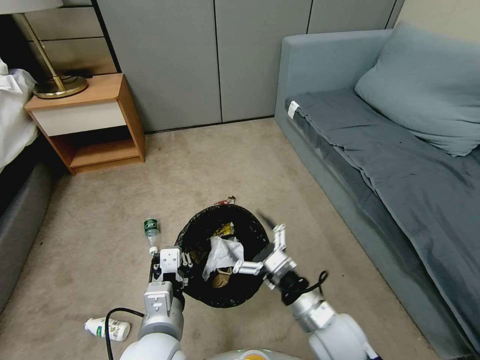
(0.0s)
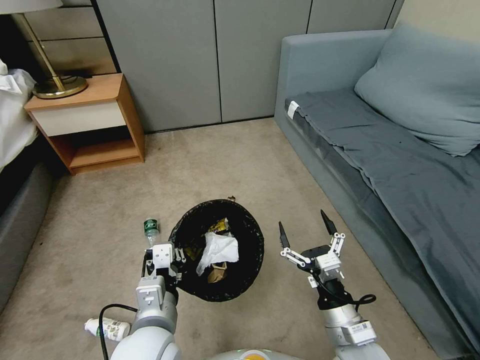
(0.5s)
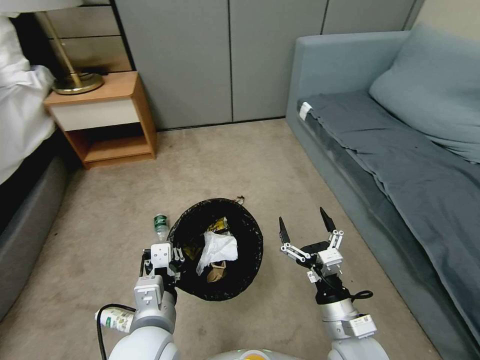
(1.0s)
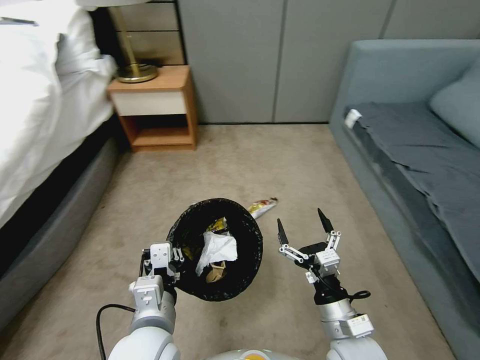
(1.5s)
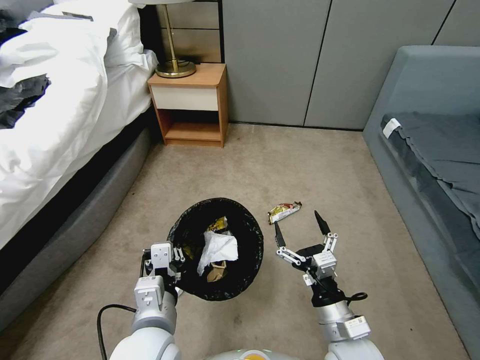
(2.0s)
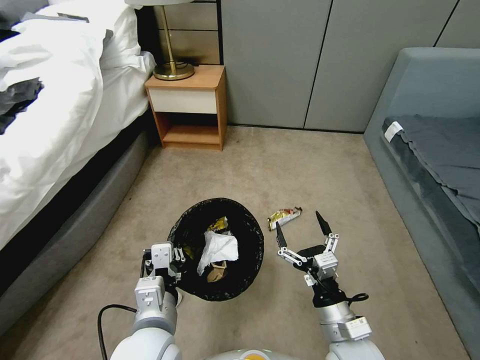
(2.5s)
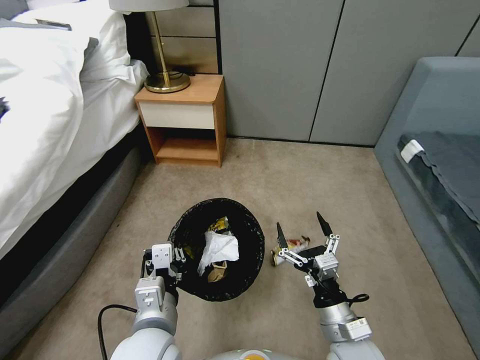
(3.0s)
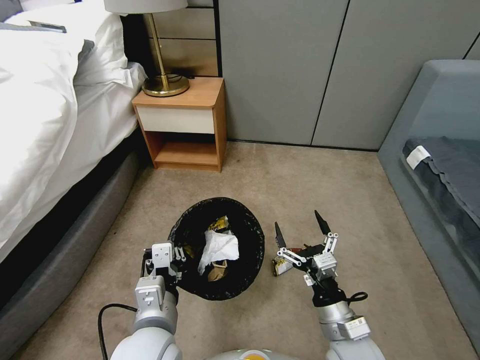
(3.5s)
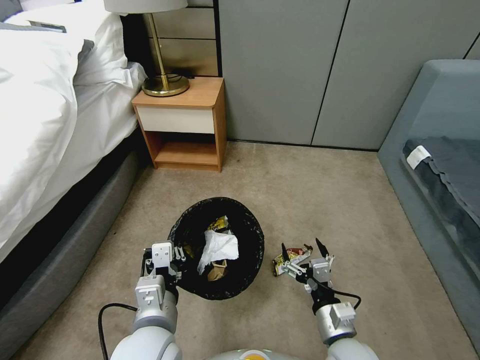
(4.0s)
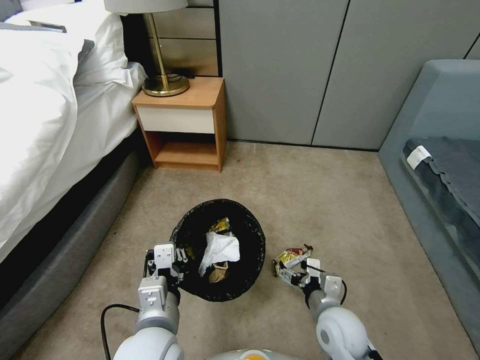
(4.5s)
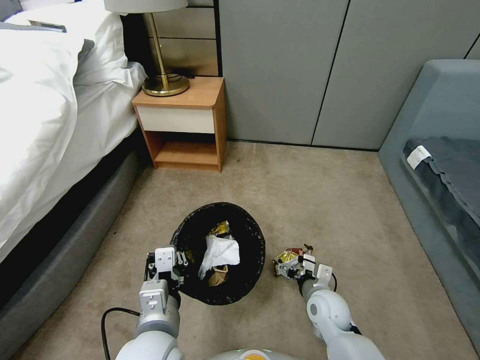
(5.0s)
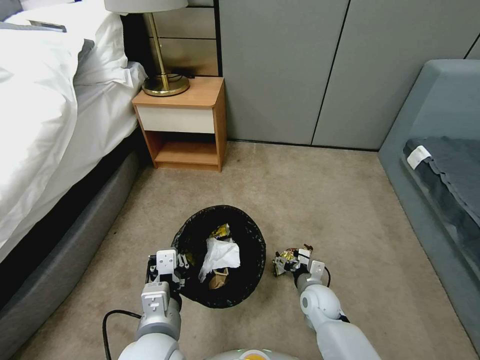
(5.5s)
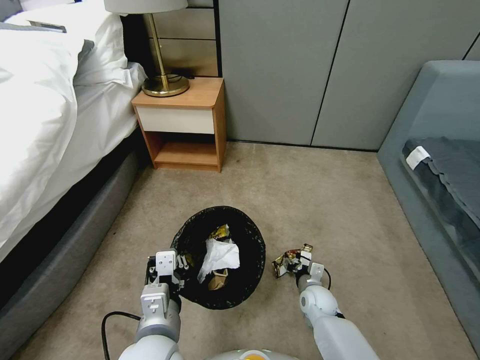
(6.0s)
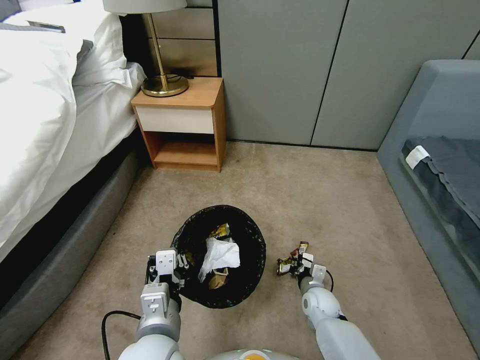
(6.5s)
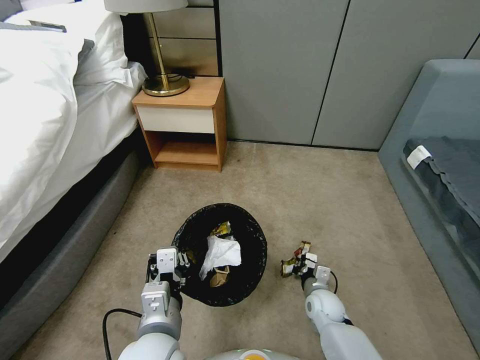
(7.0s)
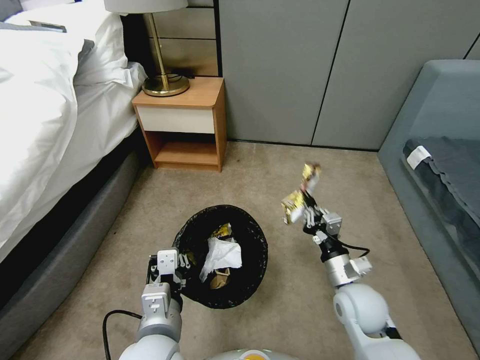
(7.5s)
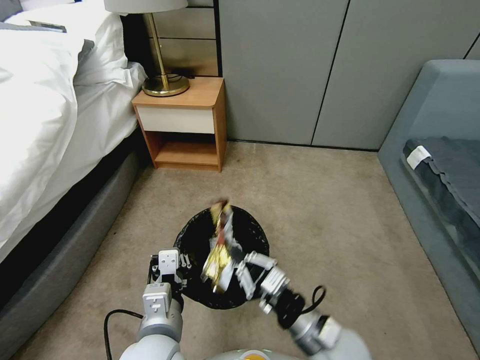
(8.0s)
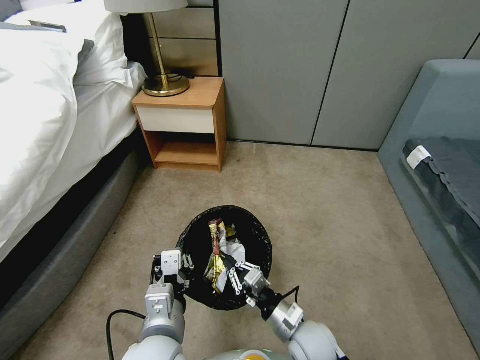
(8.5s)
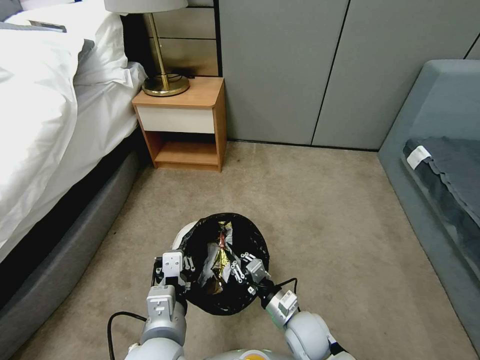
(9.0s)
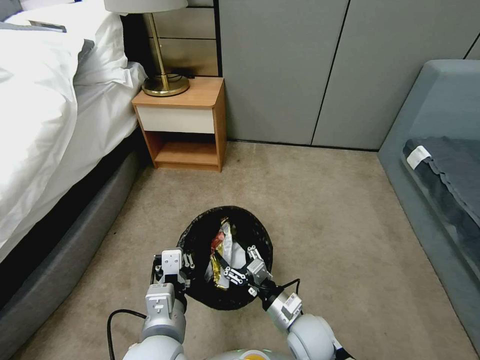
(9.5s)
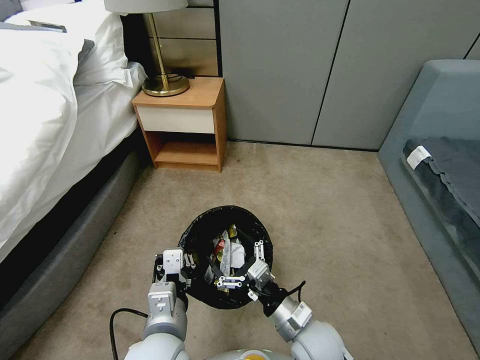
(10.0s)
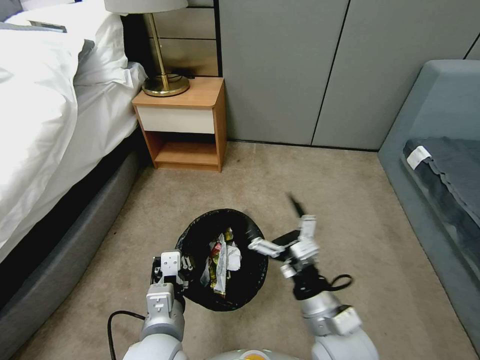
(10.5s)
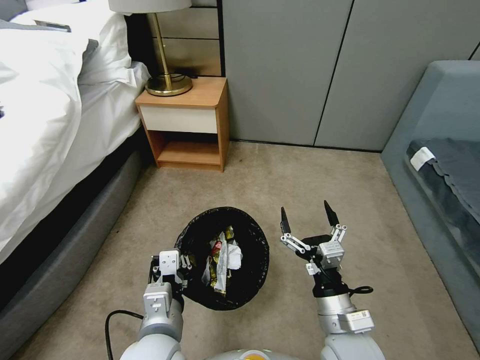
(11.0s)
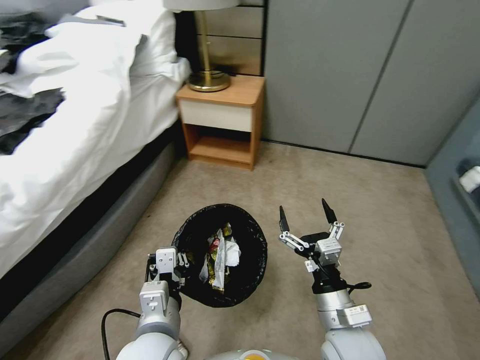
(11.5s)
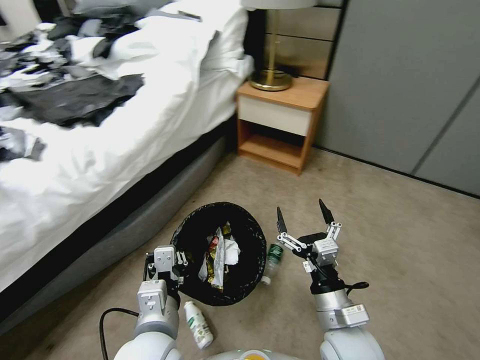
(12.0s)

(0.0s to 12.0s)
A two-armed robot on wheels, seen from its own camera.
Task of the whole recording: Pick up the trash bin, then pick up the garbage from the floor and place it into the trash bin.
4.0s - 6.0s: The right gripper travels downward and forward by some 20 cm, and closes.
6.0s - 8.0s: The right gripper travels upward and backward by some 25 cm, and closes its fingers.
8.0s - 10.0s: The right gripper reaches approximately 10 cm downward, then returns, and opens.
10.0s - 12.0s: The right gripper goes some 5 cm upward.

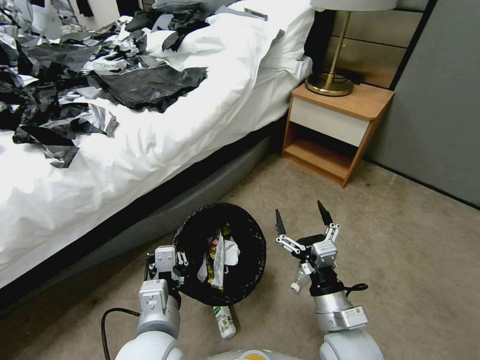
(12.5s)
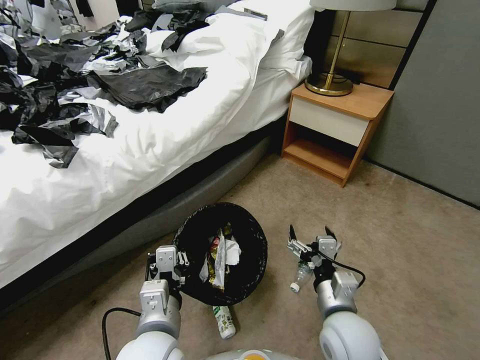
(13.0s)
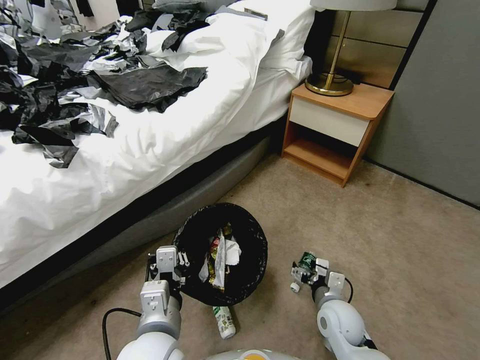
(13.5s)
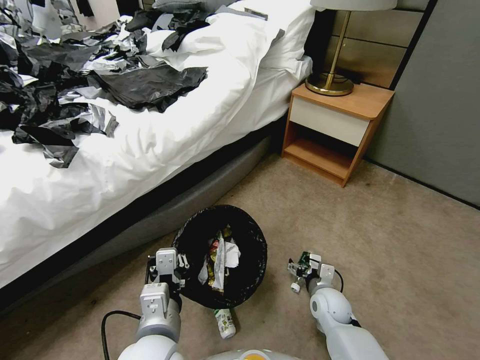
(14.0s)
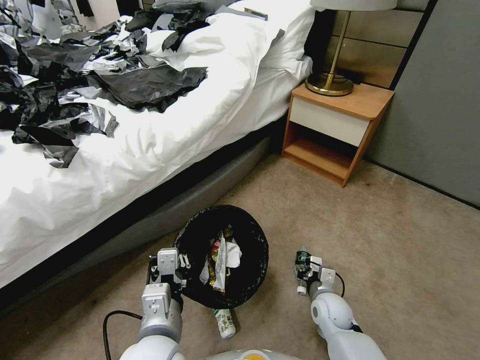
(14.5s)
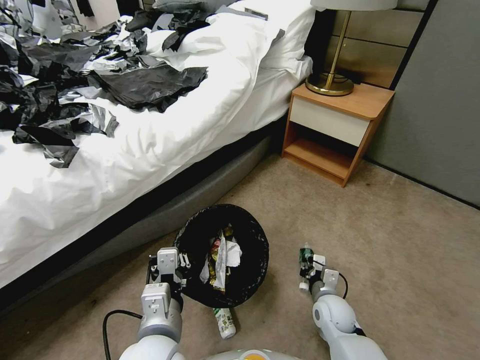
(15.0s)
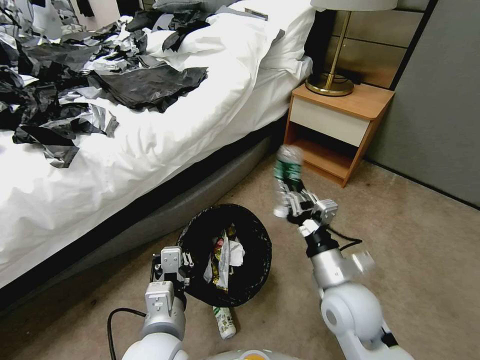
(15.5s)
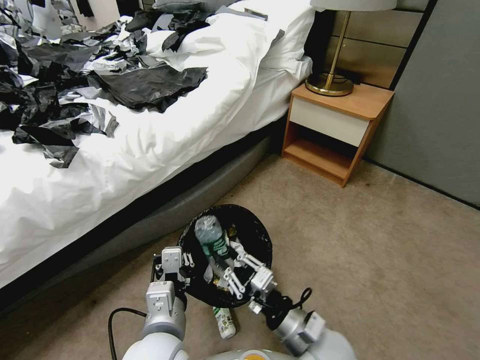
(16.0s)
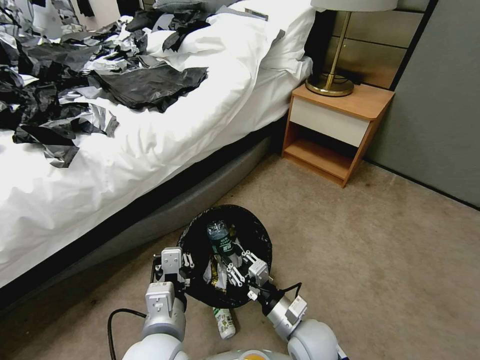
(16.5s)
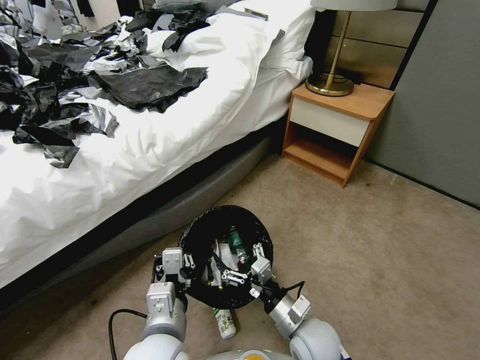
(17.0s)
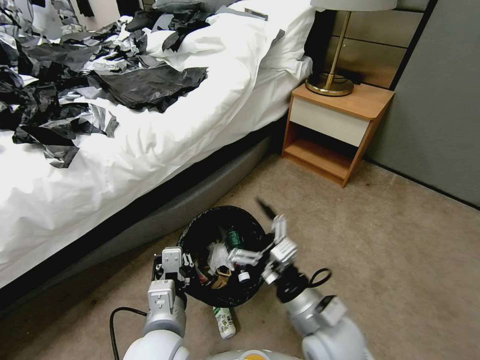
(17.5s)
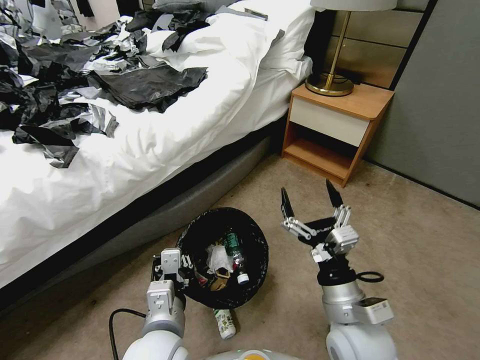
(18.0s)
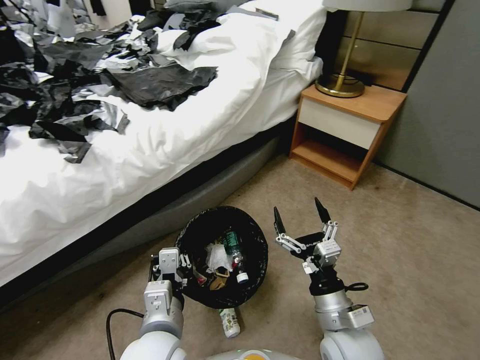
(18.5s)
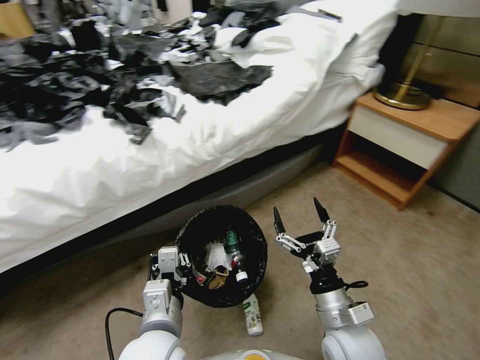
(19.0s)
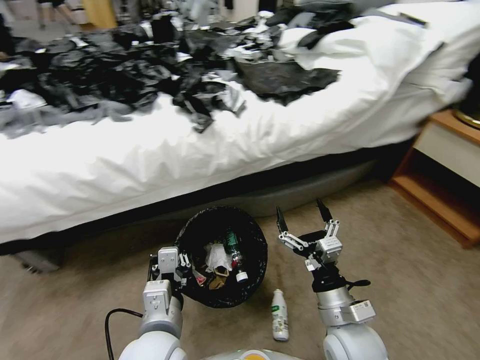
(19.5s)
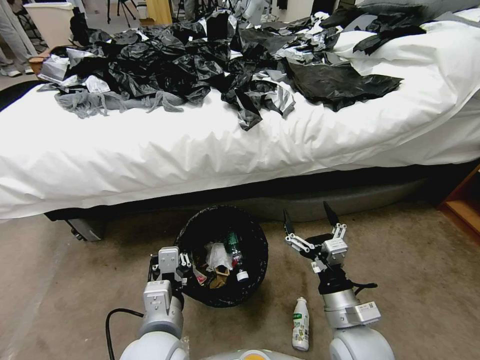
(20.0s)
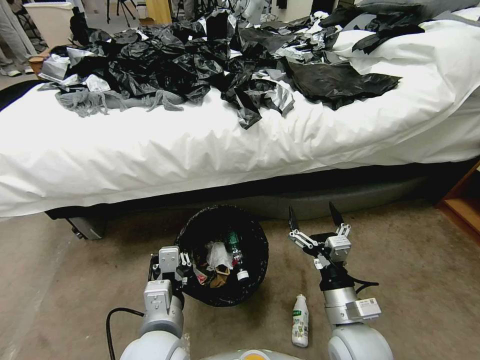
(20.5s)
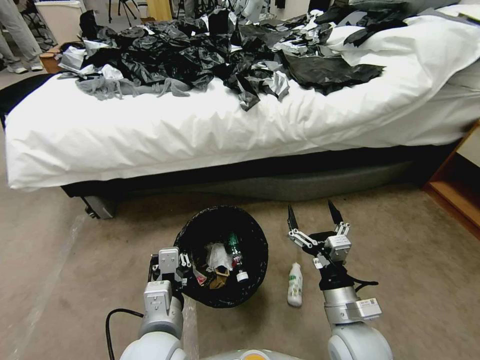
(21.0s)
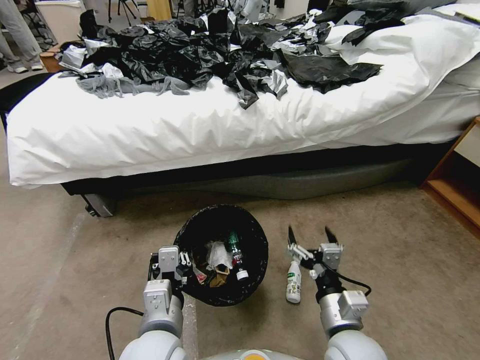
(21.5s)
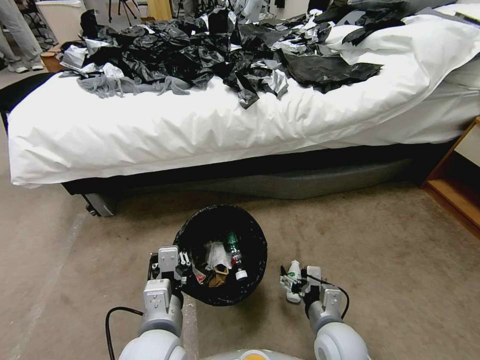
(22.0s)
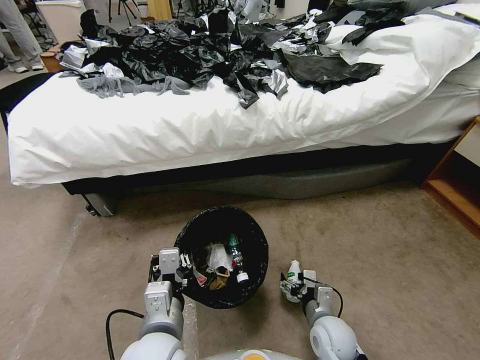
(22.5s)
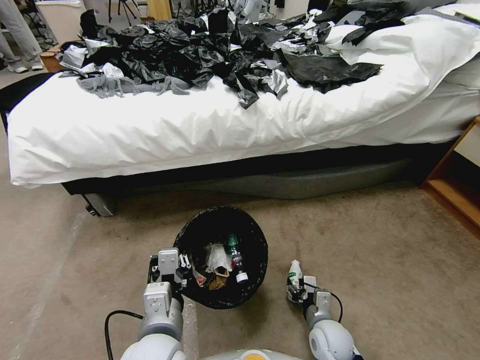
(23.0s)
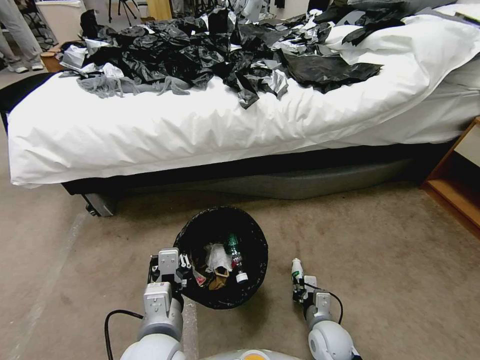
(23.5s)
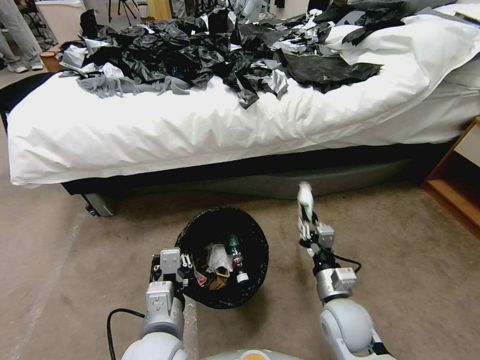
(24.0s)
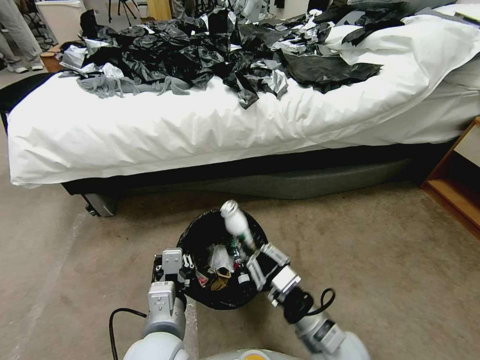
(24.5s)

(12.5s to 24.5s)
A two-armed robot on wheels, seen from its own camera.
Task of the whole recording: Pick up the trash bin, then pick up the garbage from the floor and place it into the trash bin.
12.5s - 14.5s: The right gripper is displaced downward and forward by about 20 cm, and closes up.
14.5s - 16.5s: The right gripper travels upward, to the left and backward by approximately 15 cm.
16.5s - 18.5s: The right gripper moves upward, some 10 cm, and opens up.
20.5s - 22.5s: The right gripper heads downward, covering some 15 cm.
22.5s - 24.5s: The right gripper is displaced upward and backward by some 10 cm, and closes.

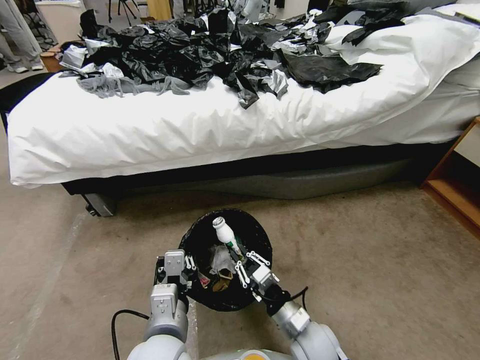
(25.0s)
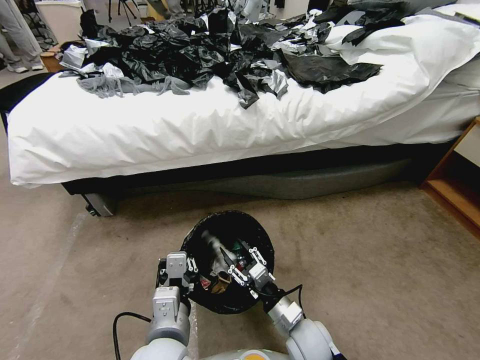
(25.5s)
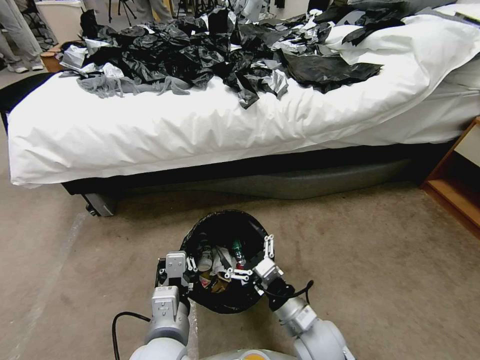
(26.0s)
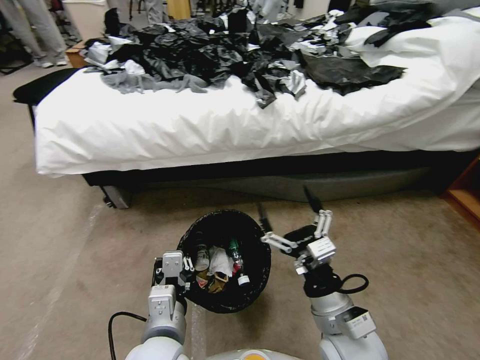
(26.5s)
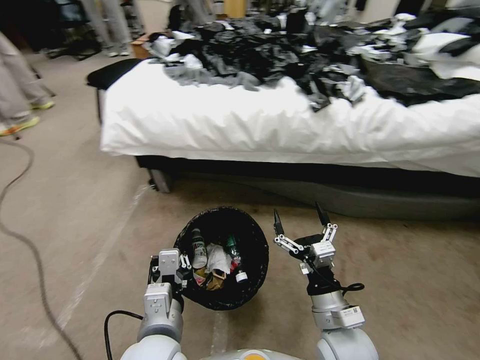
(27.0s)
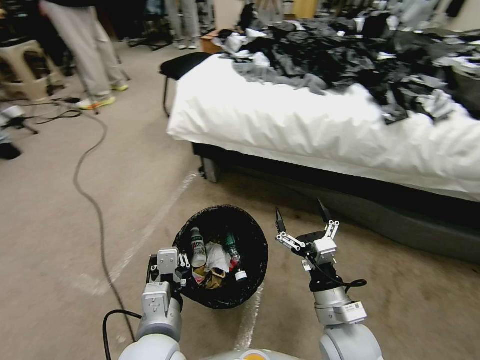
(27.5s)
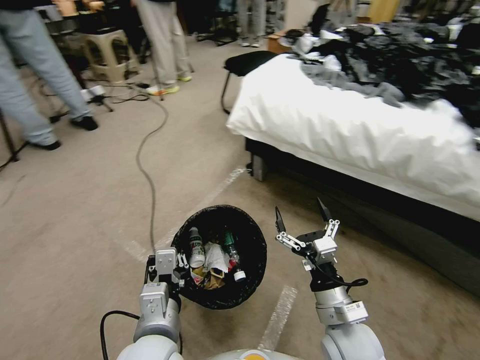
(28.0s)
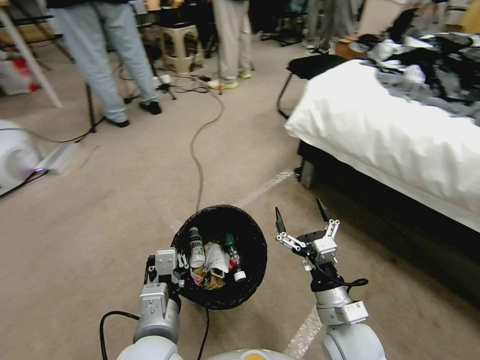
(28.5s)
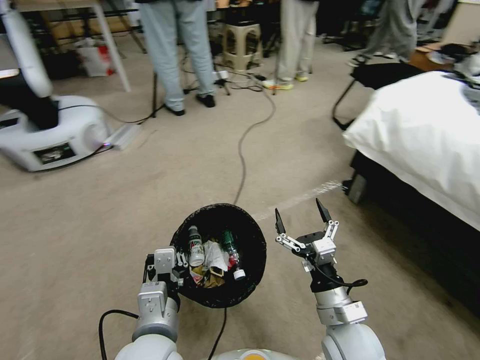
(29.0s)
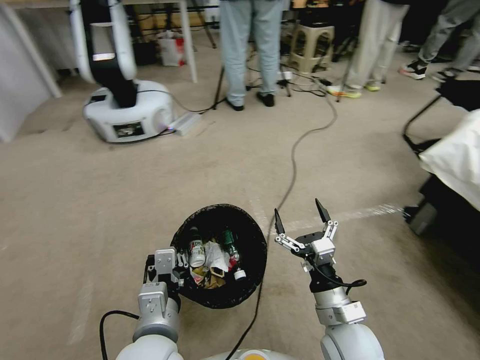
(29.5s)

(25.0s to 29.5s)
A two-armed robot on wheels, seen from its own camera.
Task of the whole recording: Pick up the trash bin, then pick up the garbage from the floor and place it into the trash bin.
25.0s - 27.0s: The right gripper shifts about 10 cm upward, and opens its fingers.
